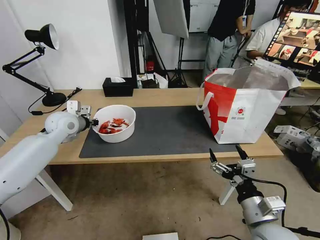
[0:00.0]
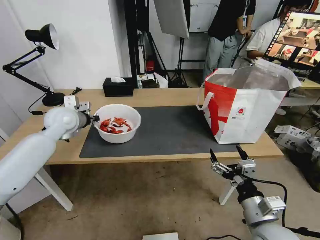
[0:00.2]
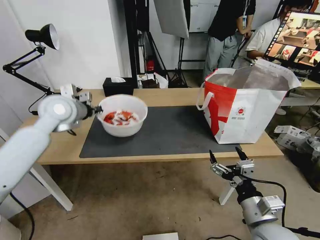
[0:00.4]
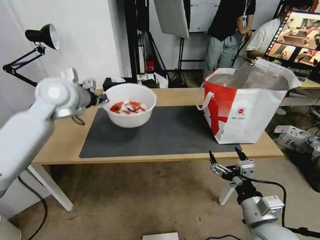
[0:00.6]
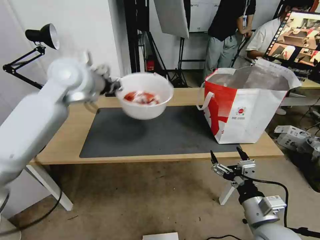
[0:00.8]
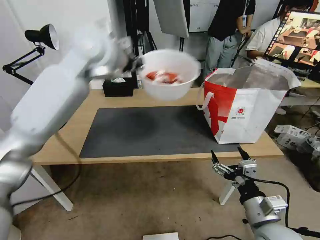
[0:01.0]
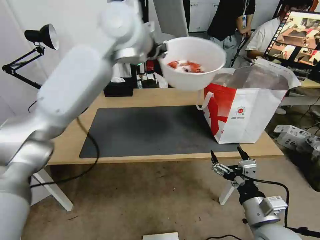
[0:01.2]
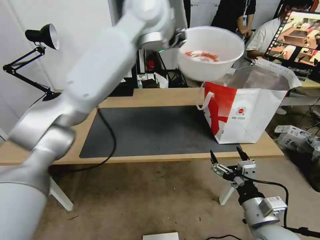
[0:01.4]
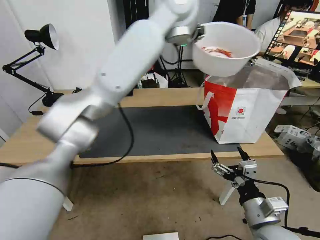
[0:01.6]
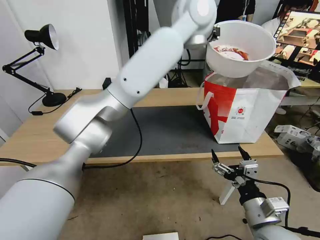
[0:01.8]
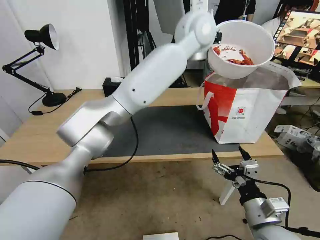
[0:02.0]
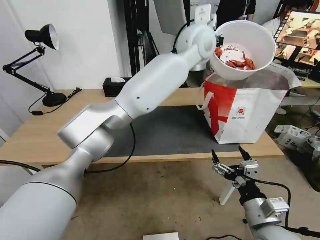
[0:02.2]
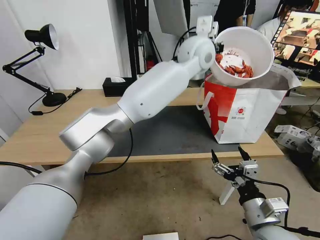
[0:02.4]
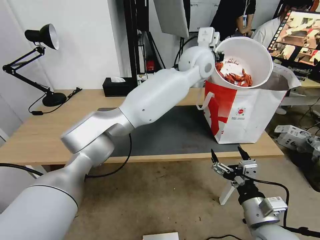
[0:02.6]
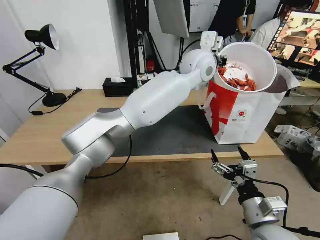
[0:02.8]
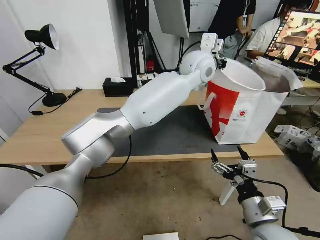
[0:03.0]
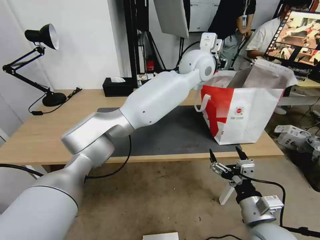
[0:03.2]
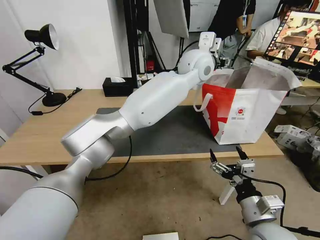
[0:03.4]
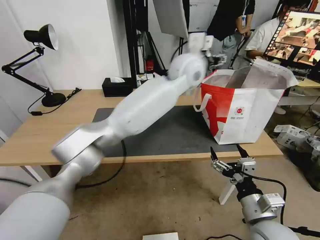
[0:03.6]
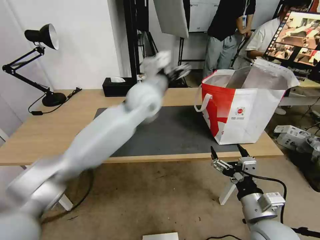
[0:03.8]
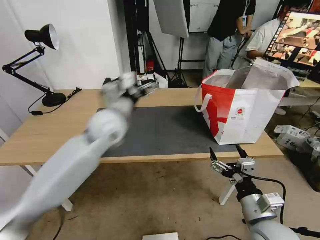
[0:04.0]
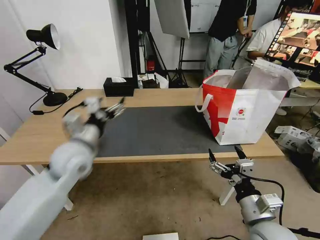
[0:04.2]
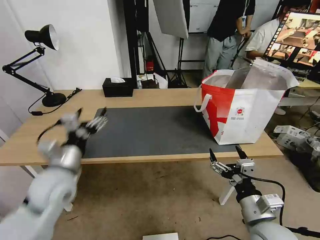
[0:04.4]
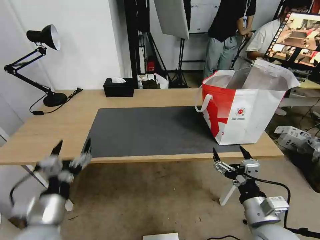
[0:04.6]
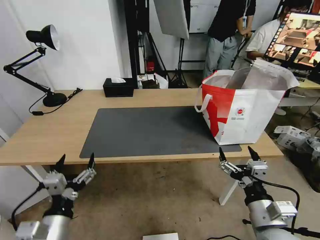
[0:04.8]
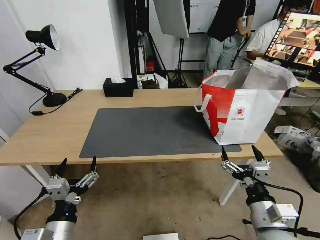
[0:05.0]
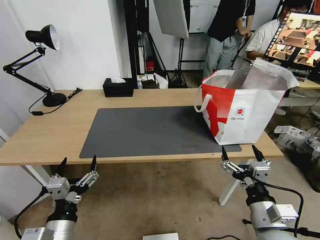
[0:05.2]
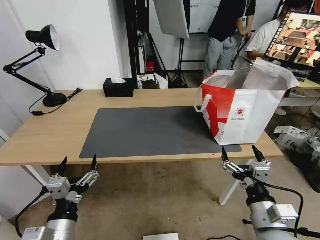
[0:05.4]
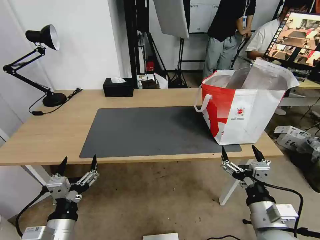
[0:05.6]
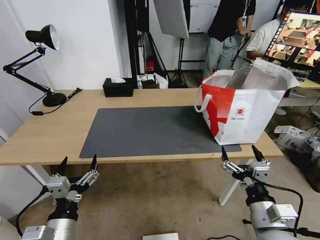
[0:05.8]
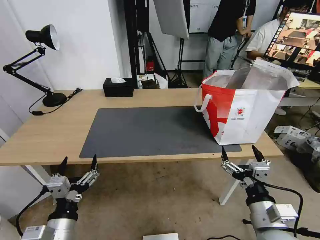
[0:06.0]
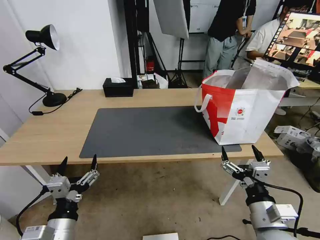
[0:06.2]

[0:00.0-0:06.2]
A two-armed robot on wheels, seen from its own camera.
Task of the whole recording: Pick up the trash from the table and place it into the takeout bag.
0:00.0 to 0:01.6: The left gripper moves to the right and upward, roughly 50 cm.
0:01.6 to 0:03.2: The left gripper heads downward and to the right, covering about 15 cm, and opens its fingers.
0:03.2 to 0:04.6: The left gripper heads to the left, backward and downward, covering roughly 60 cm, and opens up.
0:04.6 to 0:06.2: The left gripper is displaced backward by some 5 cm.

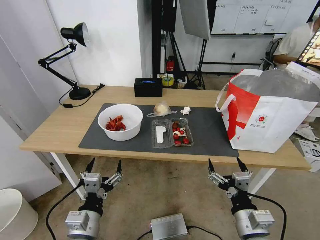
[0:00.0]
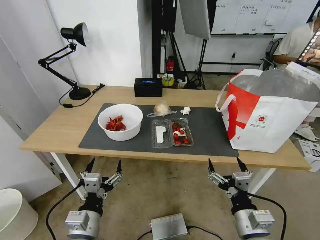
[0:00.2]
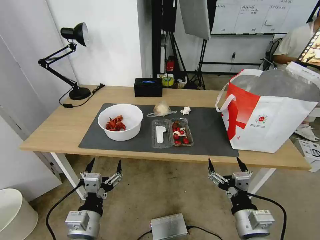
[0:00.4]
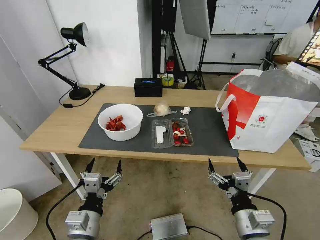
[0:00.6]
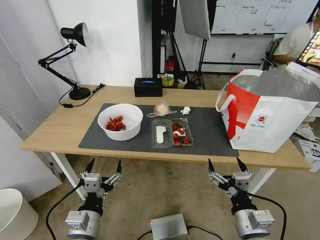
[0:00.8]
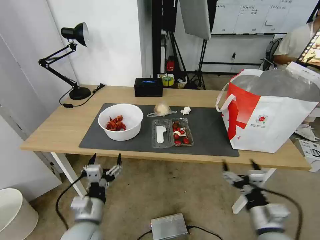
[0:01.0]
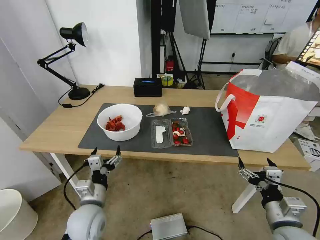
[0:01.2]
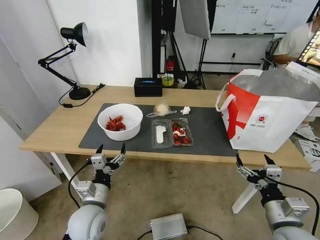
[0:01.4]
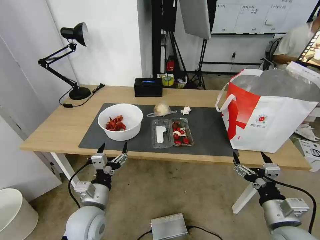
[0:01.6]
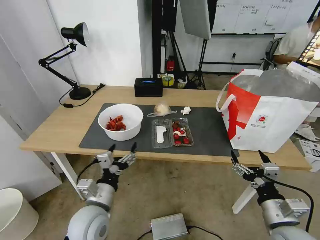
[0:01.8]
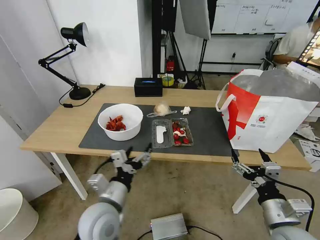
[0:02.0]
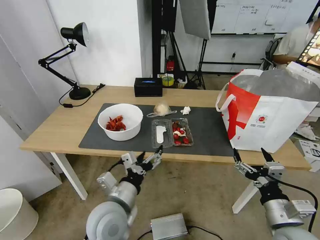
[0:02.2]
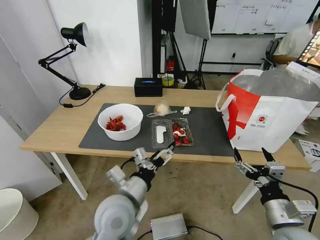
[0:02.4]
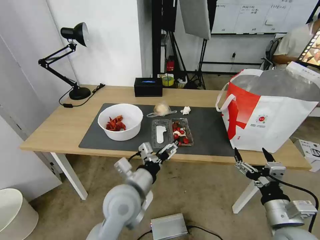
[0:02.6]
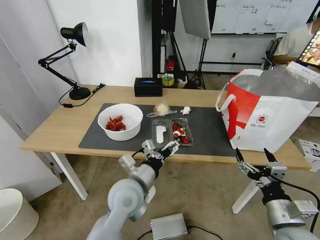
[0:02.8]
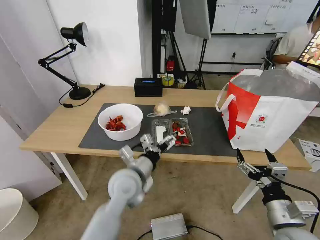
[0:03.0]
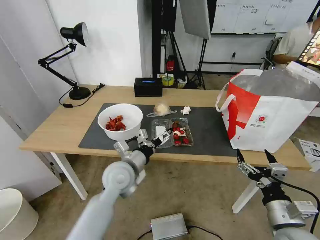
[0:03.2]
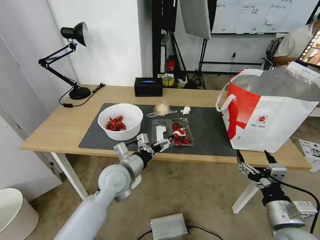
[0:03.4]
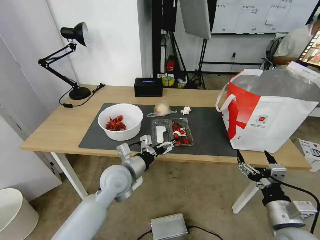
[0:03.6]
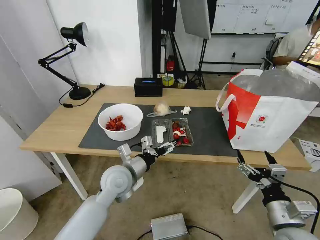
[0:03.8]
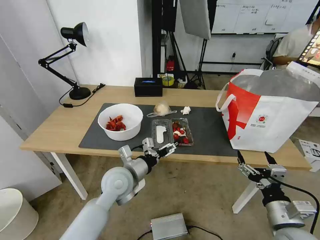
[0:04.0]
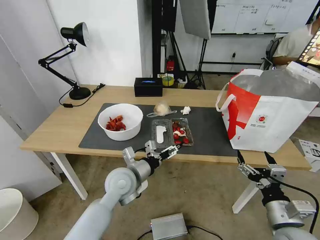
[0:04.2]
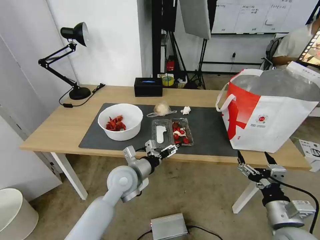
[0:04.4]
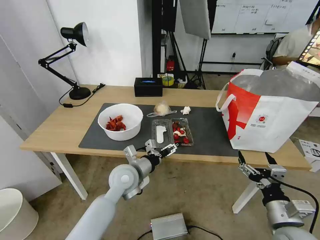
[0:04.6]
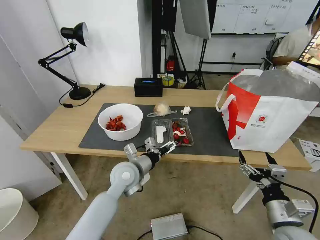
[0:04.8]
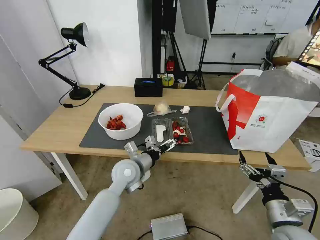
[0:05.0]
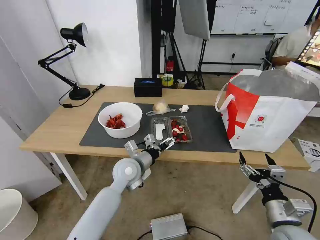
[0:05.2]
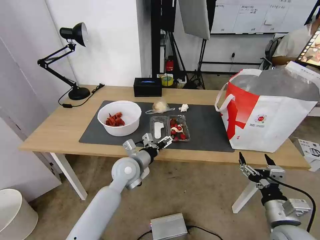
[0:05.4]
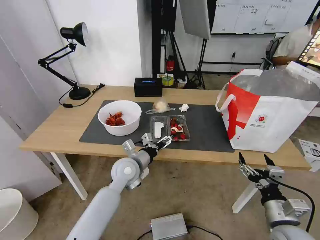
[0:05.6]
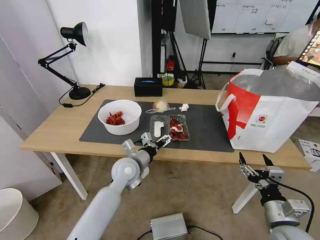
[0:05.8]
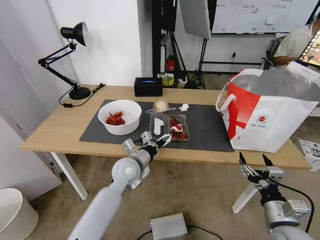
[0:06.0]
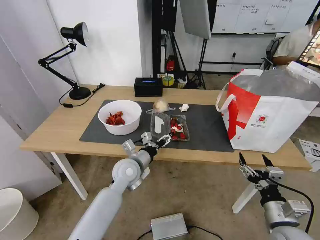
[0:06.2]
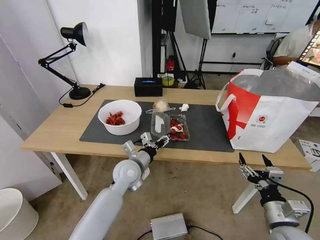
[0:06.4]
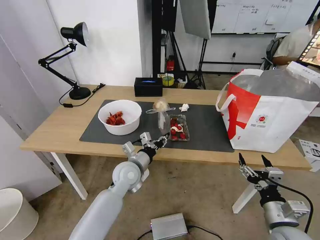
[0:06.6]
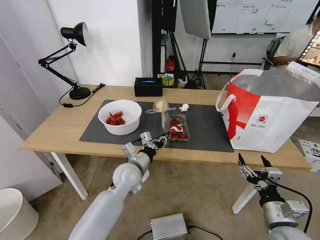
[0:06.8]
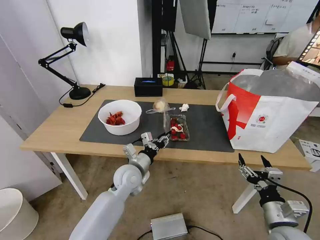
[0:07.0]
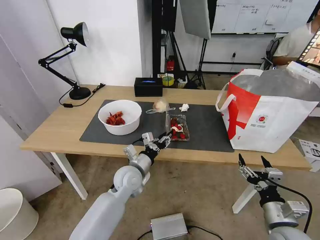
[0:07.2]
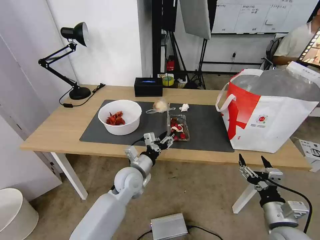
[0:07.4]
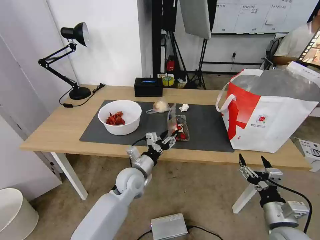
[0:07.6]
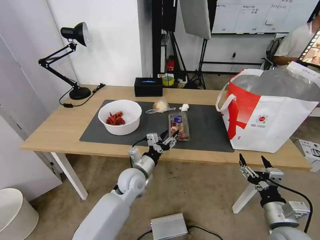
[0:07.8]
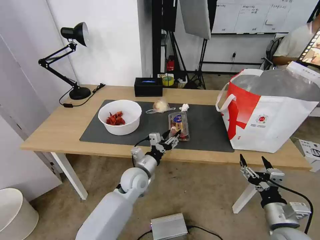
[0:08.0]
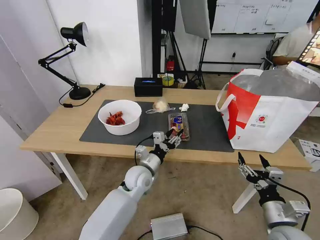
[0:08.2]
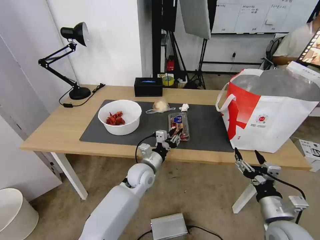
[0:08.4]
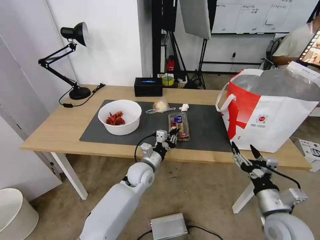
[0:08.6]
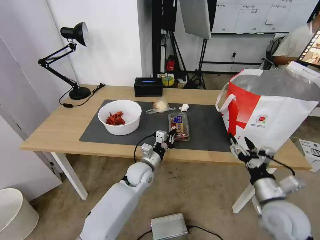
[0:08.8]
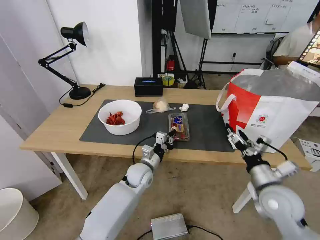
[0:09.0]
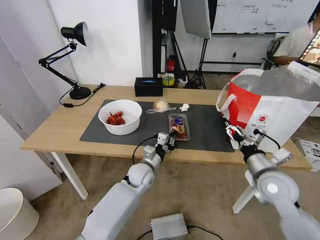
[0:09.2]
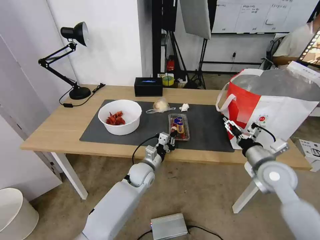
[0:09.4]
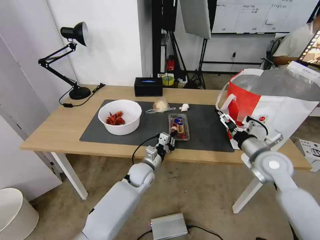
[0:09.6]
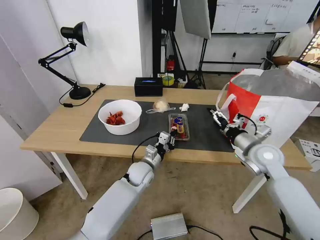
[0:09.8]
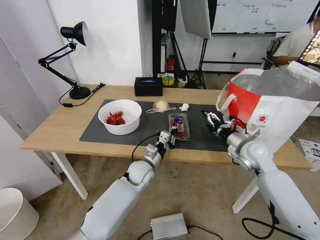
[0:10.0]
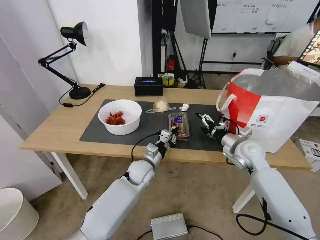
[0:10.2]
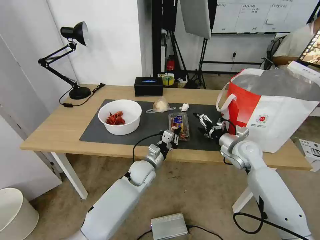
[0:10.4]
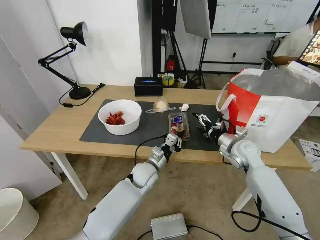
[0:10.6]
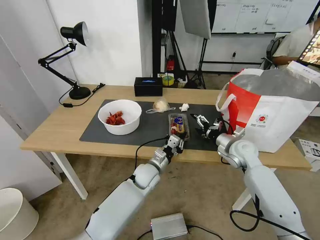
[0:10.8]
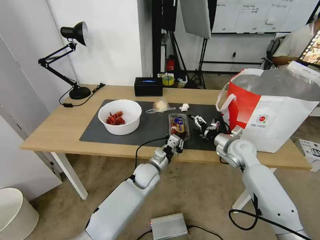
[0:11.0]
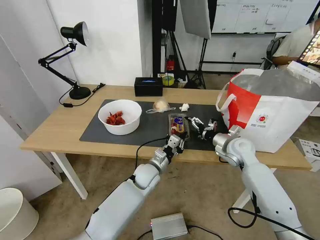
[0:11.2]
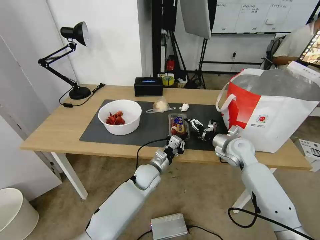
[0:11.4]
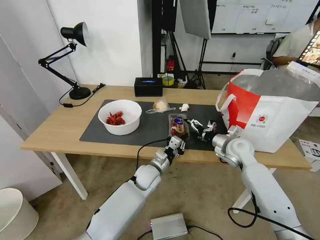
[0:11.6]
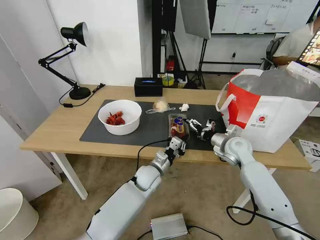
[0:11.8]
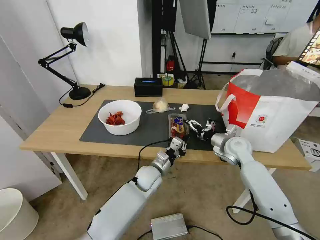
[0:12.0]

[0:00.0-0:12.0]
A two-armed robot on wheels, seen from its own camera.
Task of the whole recording: Pick up the trash from the table and place it into the takeout bag.
0:01.6 to 0:03.0: The left gripper travels to the right, forward and upward by about 15 cm.
0:03.0 to 0:04.4: The grippers stay close to where they were, moving slightly.
0:04.4 to 0:06.0: The grippers stay close to where they were, moving slightly.
0:06.0 to 0:07.6: The left gripper closes, then opens again.
0:07.6 to 0:09.0: The left gripper moves some 5 cm, and closes its fingers. Meanwhile the right gripper goes roughly 10 cm forward and upward.
0:09.0 to 0:10.4: The right gripper goes approximately 20 cm forward.
0:10.4 to 0:12.0: There are only small adjustments of the grippers.

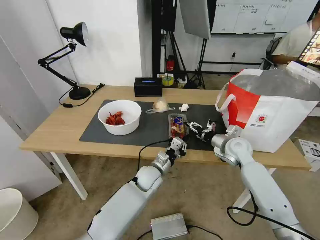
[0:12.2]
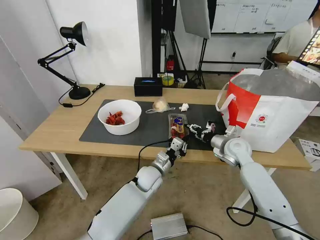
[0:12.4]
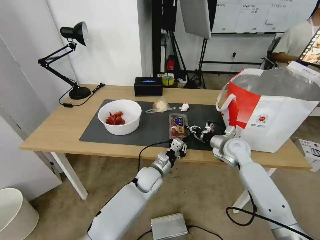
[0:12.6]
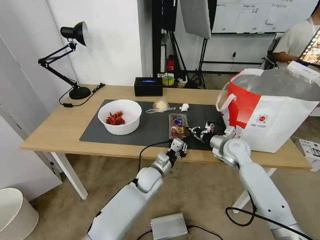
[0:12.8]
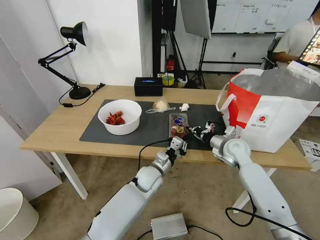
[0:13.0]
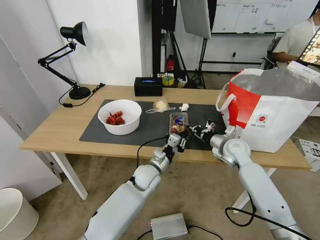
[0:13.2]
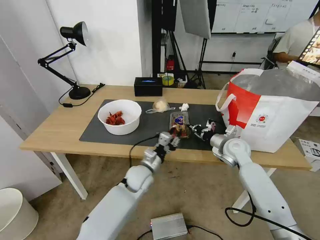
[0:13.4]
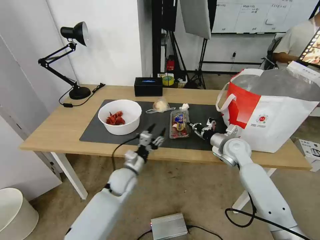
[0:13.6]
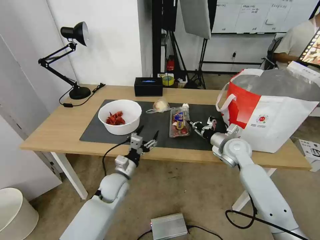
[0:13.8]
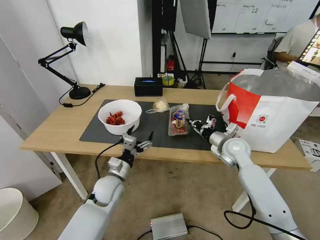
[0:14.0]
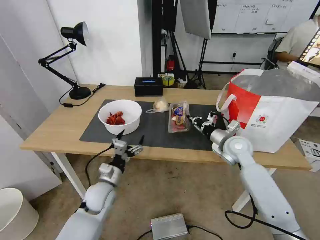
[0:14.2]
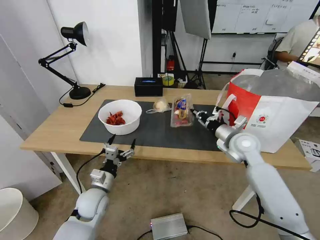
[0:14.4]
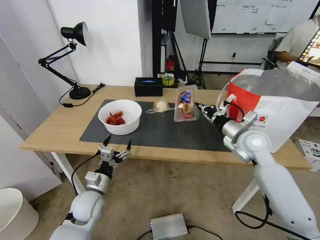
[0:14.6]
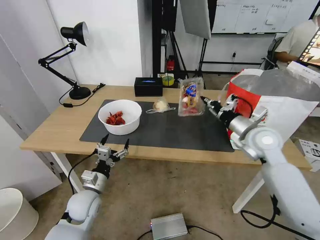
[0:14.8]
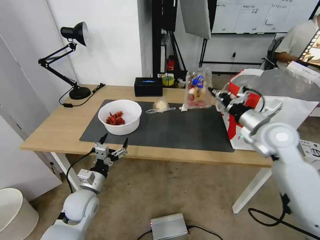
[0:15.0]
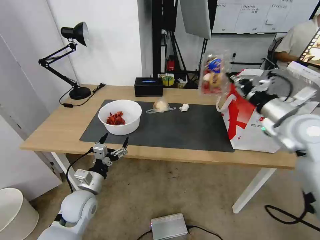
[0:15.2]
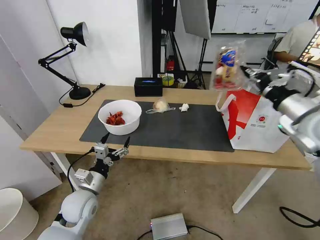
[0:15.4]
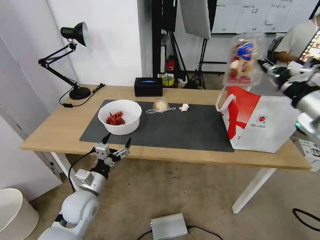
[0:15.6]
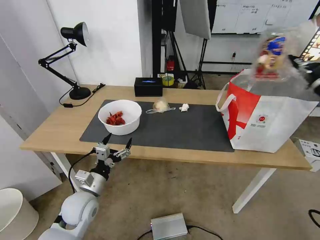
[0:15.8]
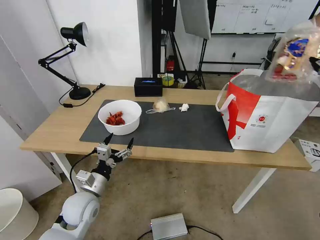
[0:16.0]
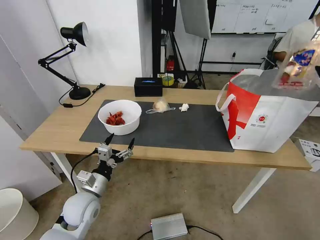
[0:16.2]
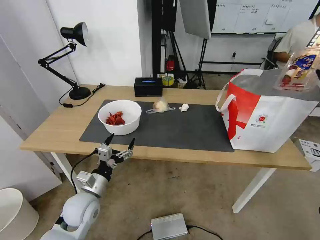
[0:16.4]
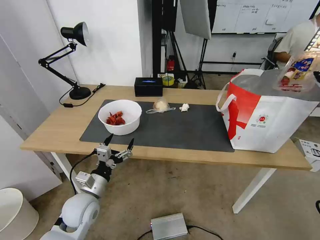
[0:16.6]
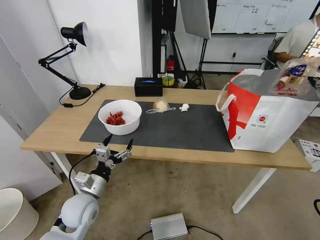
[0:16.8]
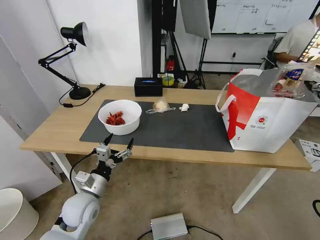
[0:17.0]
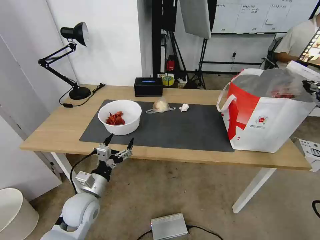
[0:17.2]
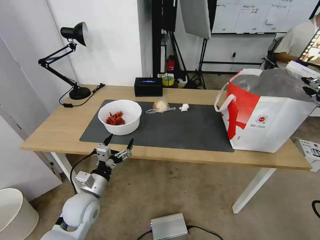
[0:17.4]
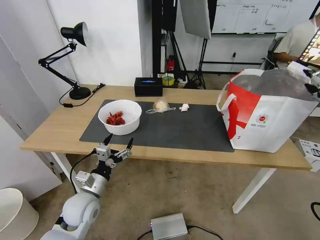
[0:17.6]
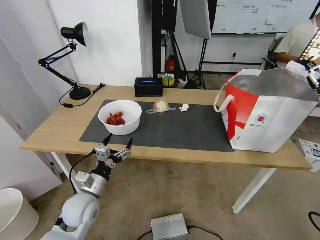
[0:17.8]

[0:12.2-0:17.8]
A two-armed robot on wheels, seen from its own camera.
Task of the whole recording: Pick up the trash from the table and place it into the takeout bag.
0:12.2 to 0:13.6: The left gripper is displaced to the left by approximately 10 cm, and opens up. Meanwhile the right gripper closes.
0:13.6 to 0:15.0: The right gripper shifts approximately 15 cm upward and backward. The left gripper moves to the left and backward, some 15 cm, and opens.
0:15.0 to 0:16.4: The right gripper moves to the right, upward and backward, about 20 cm.
0:16.4 to 0:17.8: The right gripper opens.
